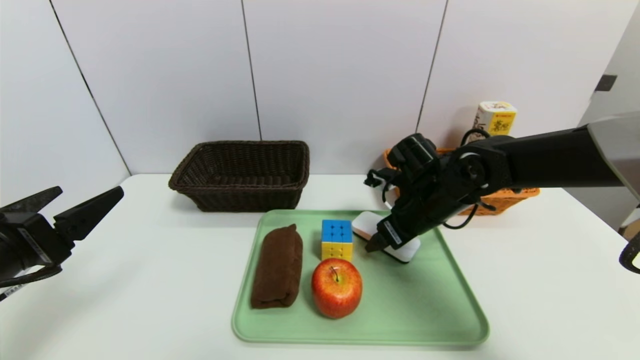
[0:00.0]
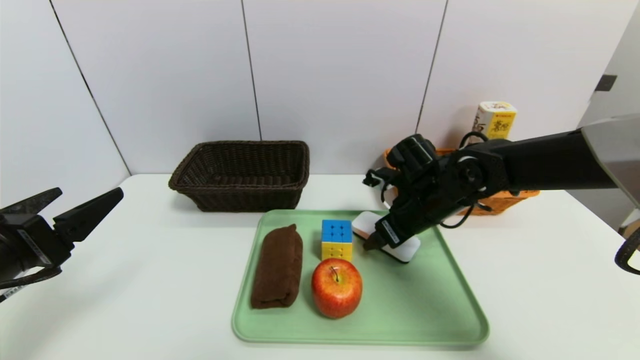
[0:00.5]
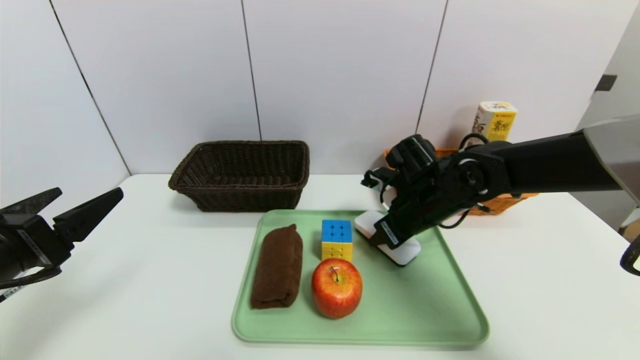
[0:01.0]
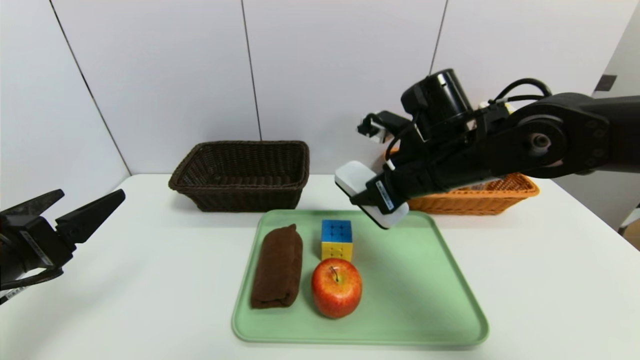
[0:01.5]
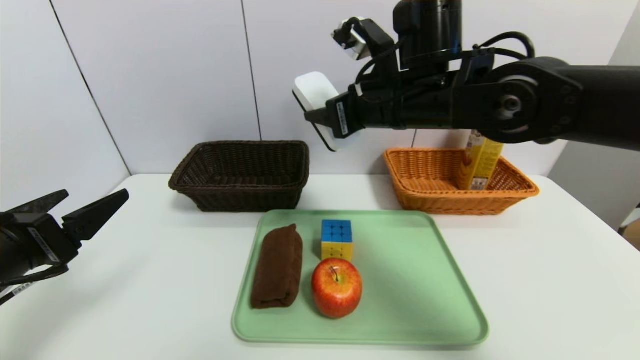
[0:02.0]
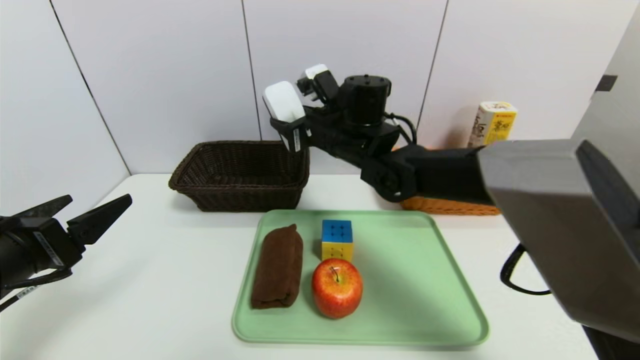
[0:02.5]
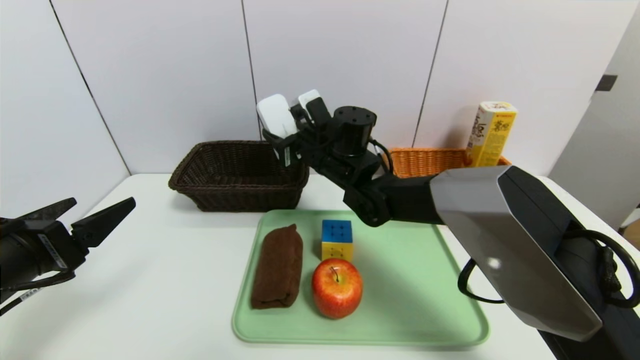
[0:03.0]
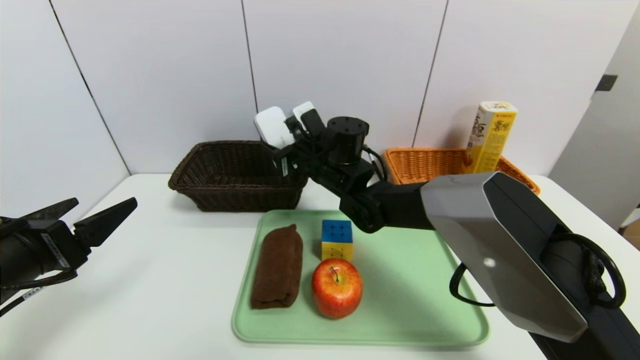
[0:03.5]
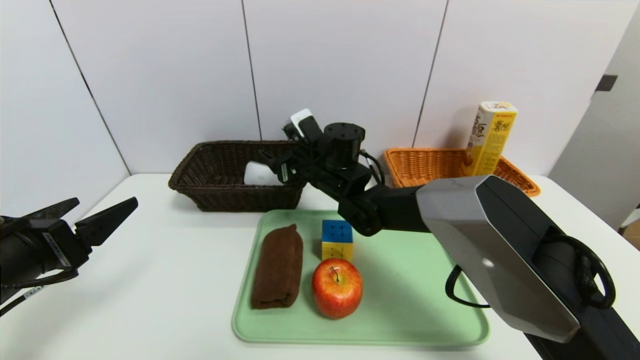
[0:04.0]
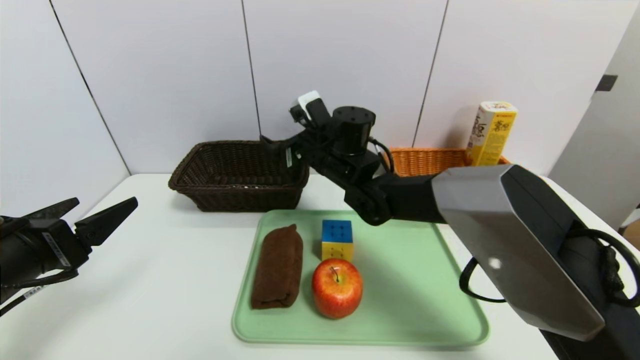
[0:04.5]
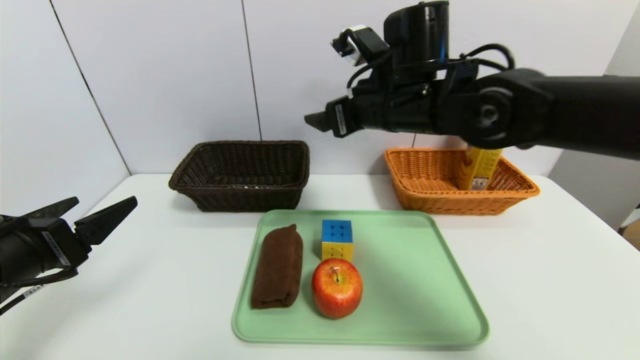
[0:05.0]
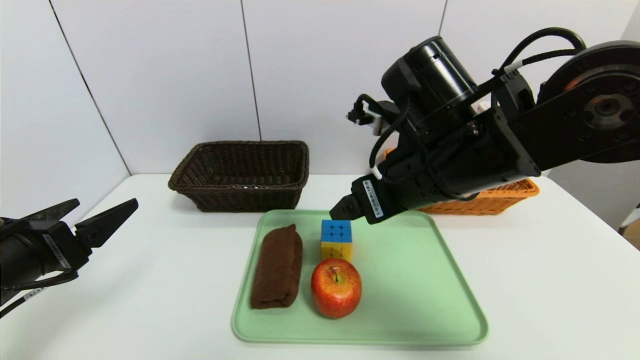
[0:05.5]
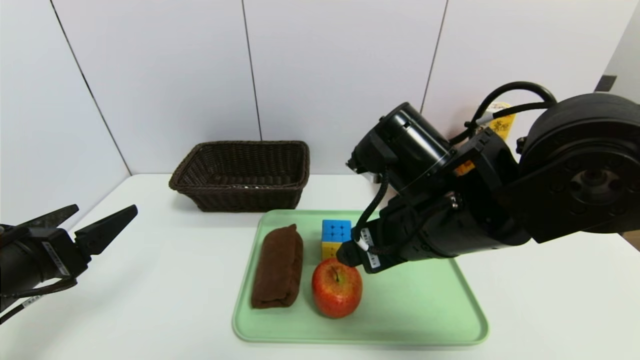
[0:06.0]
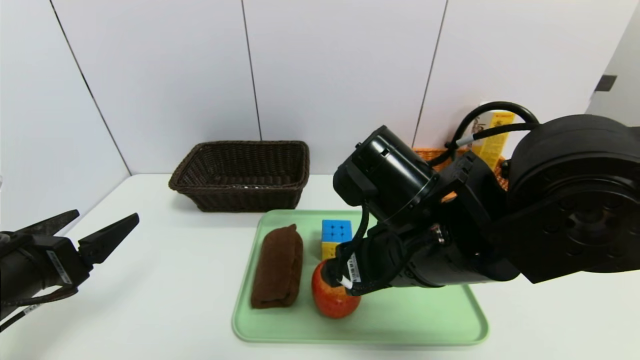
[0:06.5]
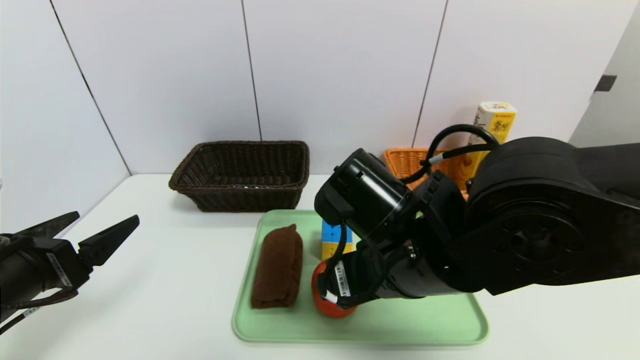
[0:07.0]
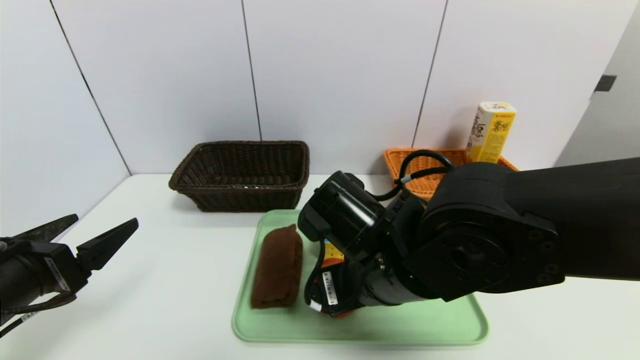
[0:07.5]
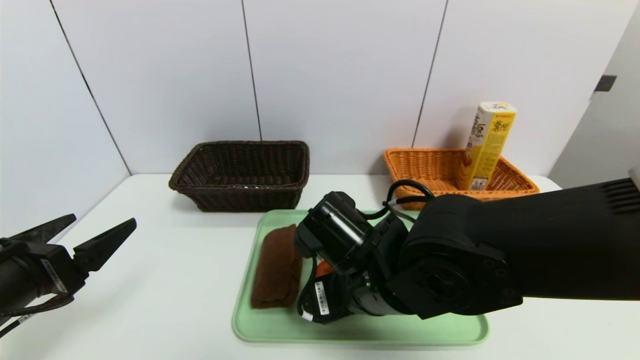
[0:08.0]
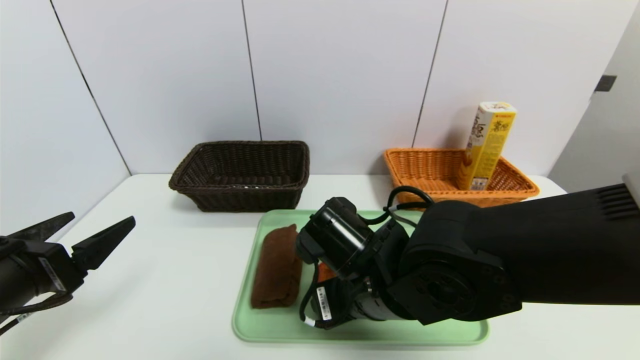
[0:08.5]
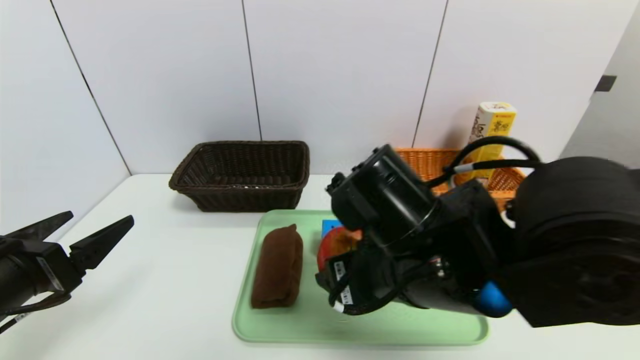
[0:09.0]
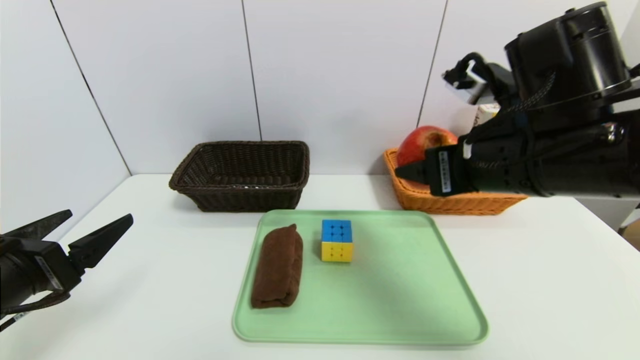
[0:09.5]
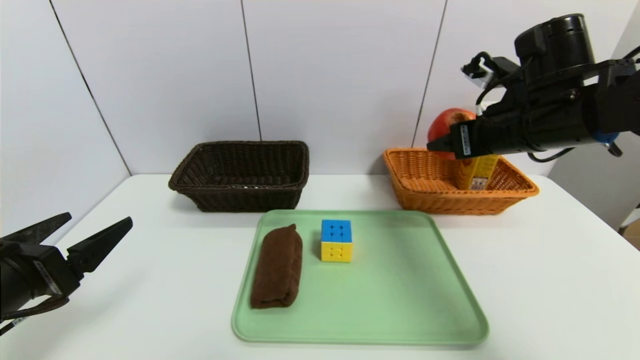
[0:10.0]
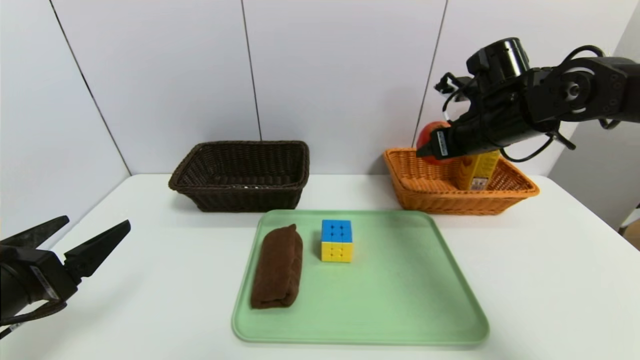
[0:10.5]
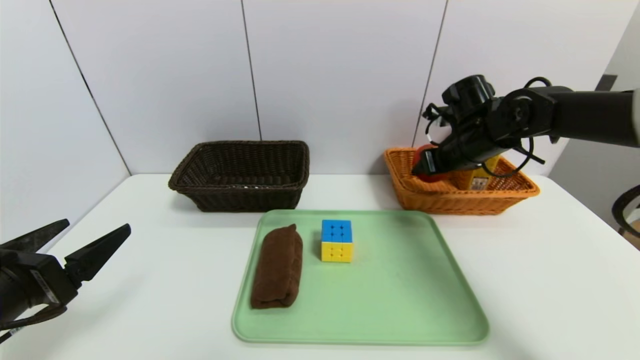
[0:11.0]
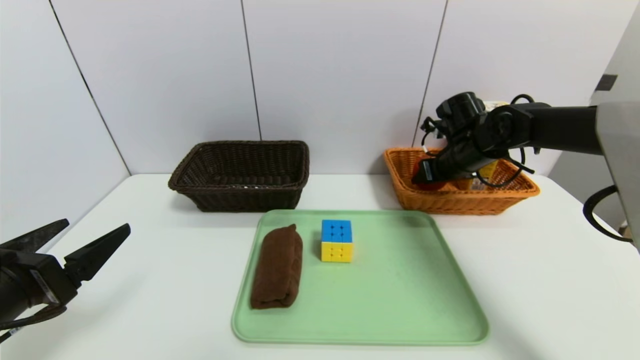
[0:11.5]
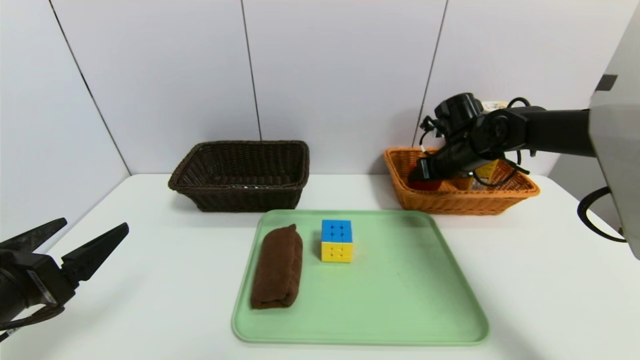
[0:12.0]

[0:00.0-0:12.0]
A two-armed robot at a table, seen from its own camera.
Task of the whole recording: place the food in the right basket with the right gripper, and place the non food items in the left basket with the left gripper.
0:00.0 to 0:02.0: The right gripper is displaced upward and to the left by roughly 15 cm, and closes its fingers.
0:02.0 to 0:04.0: The right gripper shifts roughly 20 cm downward, to the left and forward, and opens its fingers.
0:04.0 to 0:06.0: The right gripper is displaced backward and to the right by approximately 20 cm, and opens its fingers.
0:06.0 to 0:08.0: The right gripper is displaced downward and to the left by about 10 cm.
0:08.0 to 0:10.0: The right gripper heads to the right, upward and forward, covering roughly 25 cm, and closes its fingers.
0:10.0 to 0:12.0: The right gripper heads forward and downward, covering approximately 15 cm.

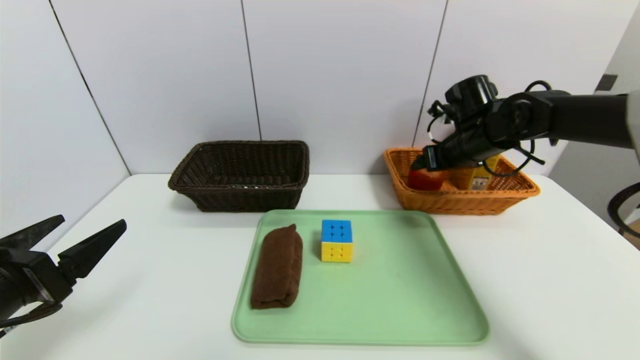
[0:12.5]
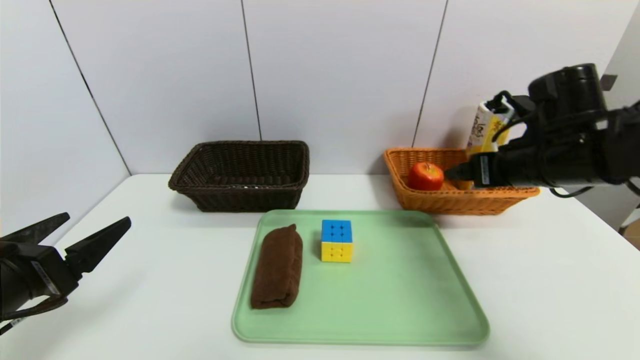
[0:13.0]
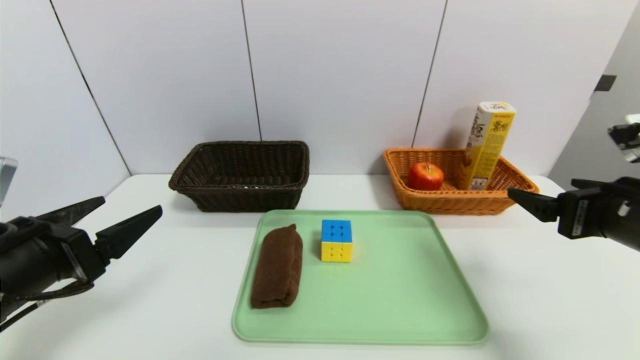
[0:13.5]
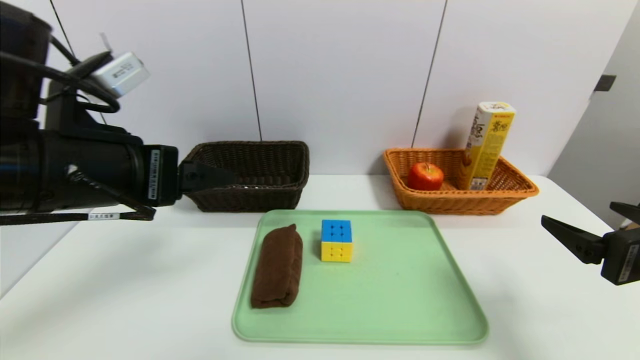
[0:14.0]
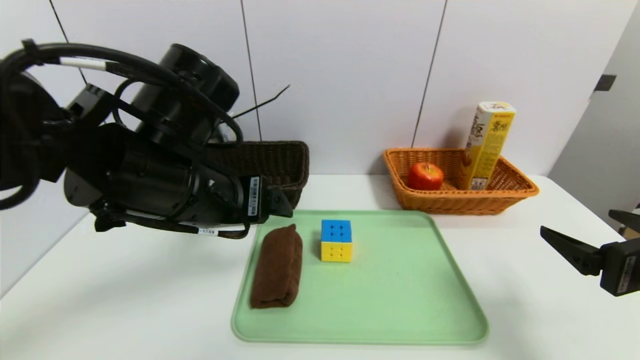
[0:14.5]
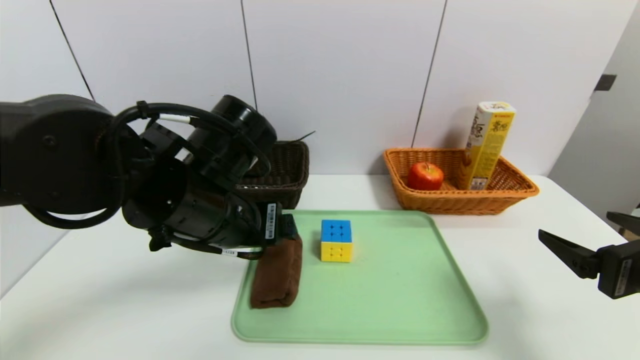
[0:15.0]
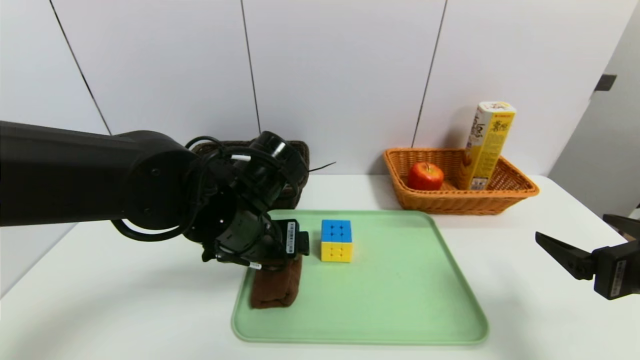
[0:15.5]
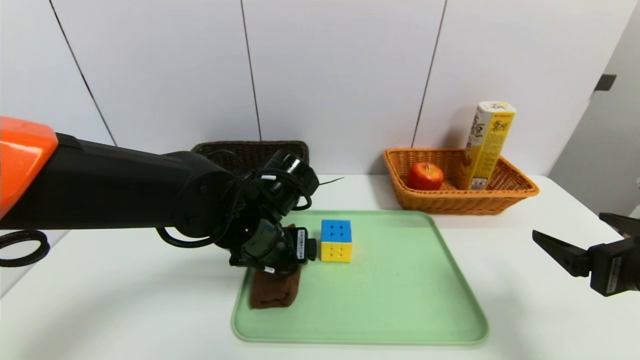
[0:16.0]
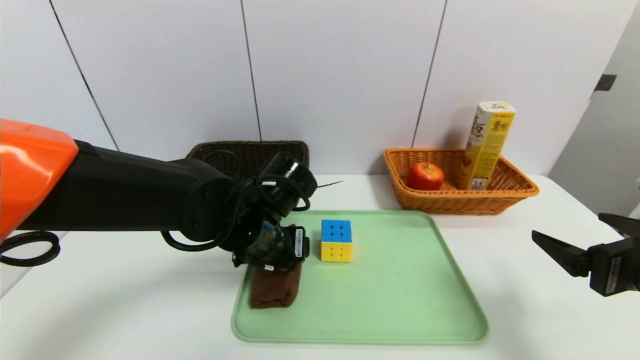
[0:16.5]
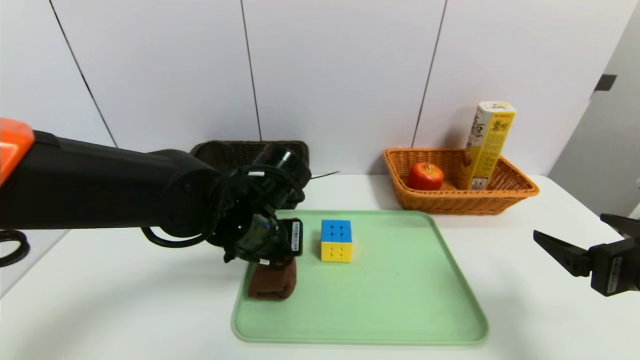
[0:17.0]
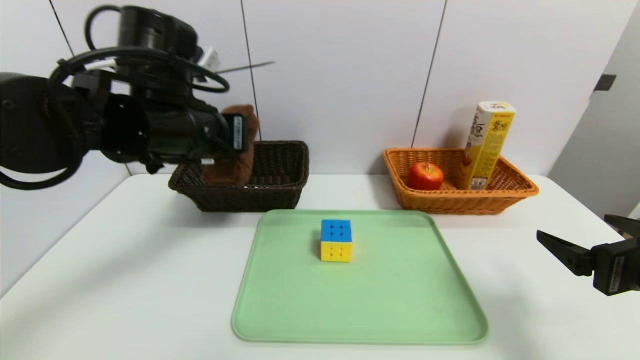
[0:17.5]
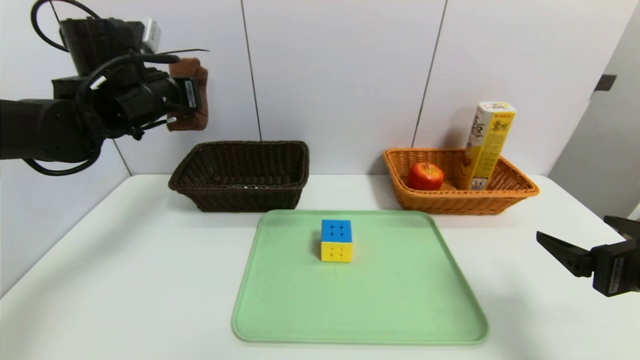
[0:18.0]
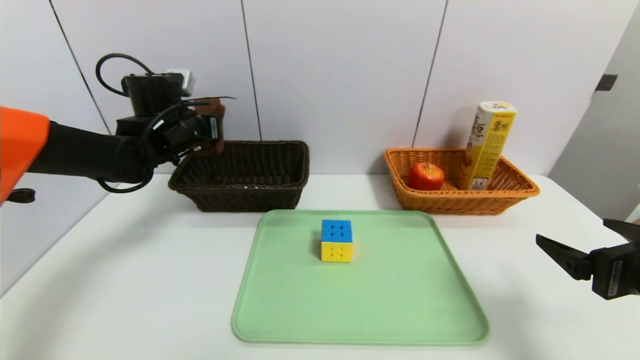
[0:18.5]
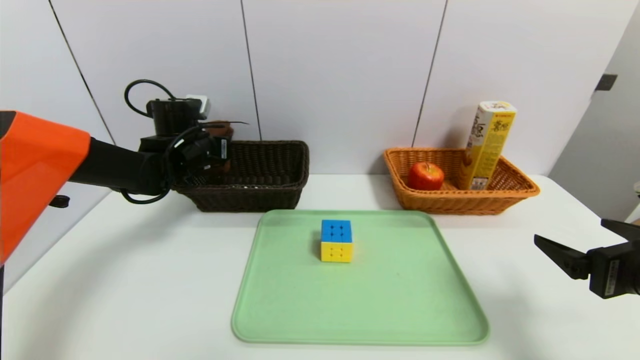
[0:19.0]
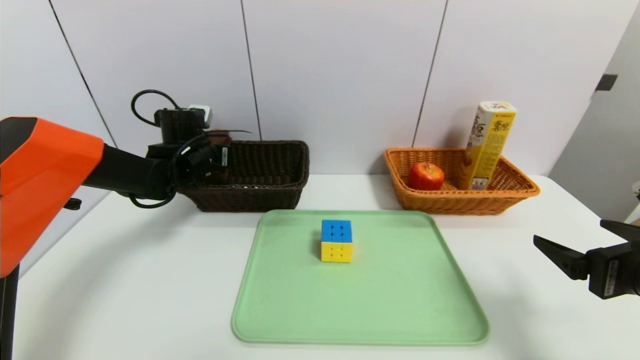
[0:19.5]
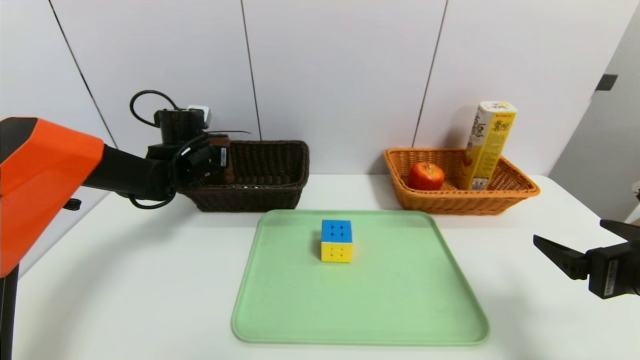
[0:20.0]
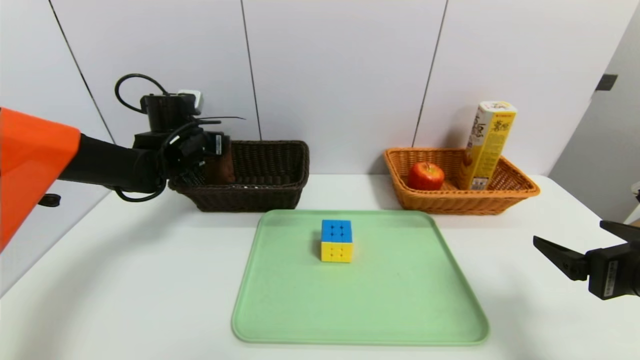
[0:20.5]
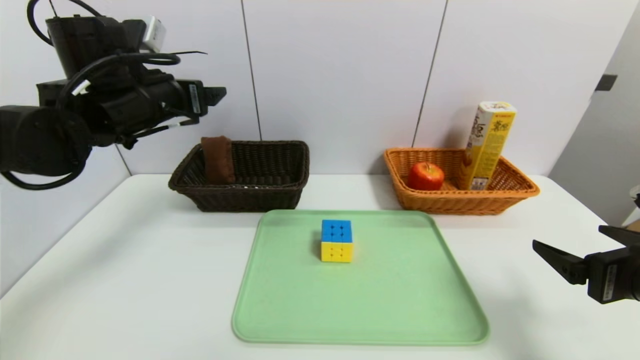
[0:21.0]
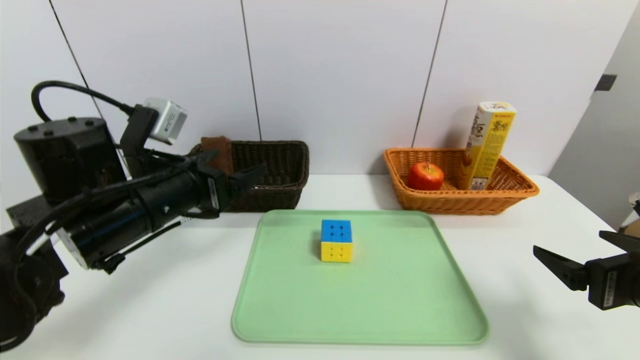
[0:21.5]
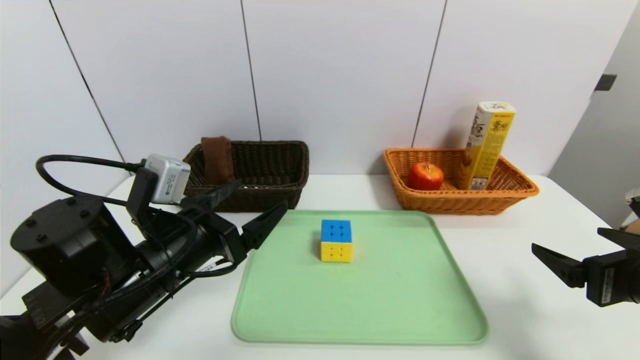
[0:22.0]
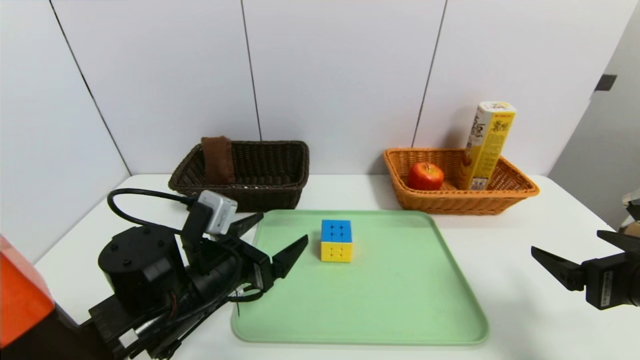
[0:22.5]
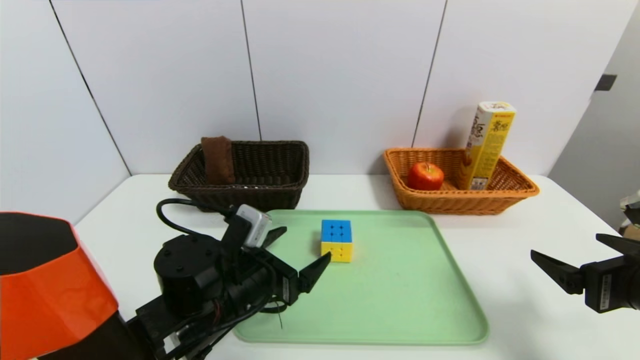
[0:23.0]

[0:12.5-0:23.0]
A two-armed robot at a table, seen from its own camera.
Task of the whole recording: place the food in the right basket with the right gripper, and place the non food items in the left basket with the left gripper.
Step, 0:13.0 to 0:20.5: Grasp the brown towel and put it in the left basket.
0:12.5 to 0:14.5: The right gripper shifts some 30 cm backward; the left gripper shifts some 20 cm to the right, forward and upward.
0:14.5 to 0:16.5: The left gripper shifts about 15 cm downward, forward and to the right.
0:16.5 to 0:19.0: The left gripper travels forward and to the left by about 25 cm, and closes.
0:19.0 to 0:21.0: The left gripper goes roughly 15 cm backward and upward, and opens its fingers.
0:21.0 to 0:23.0: The left gripper moves downward, to the right and backward, some 25 cm.
